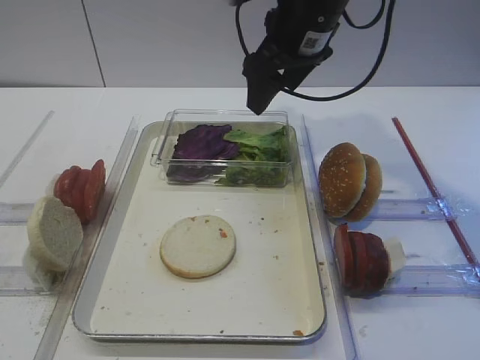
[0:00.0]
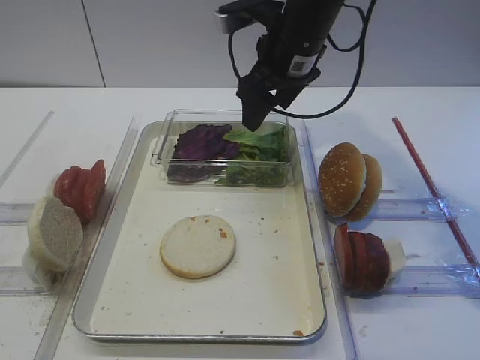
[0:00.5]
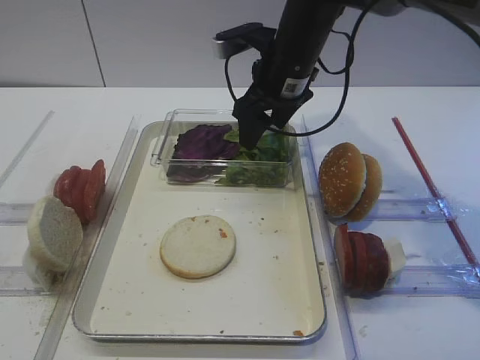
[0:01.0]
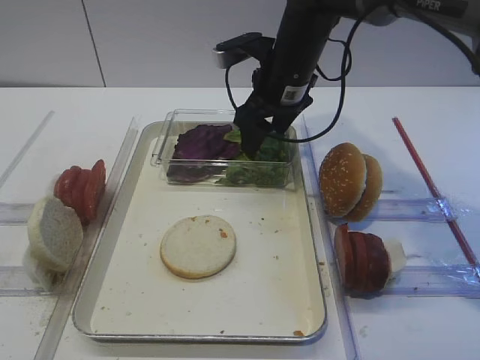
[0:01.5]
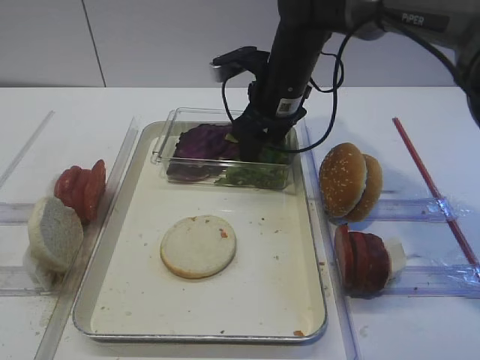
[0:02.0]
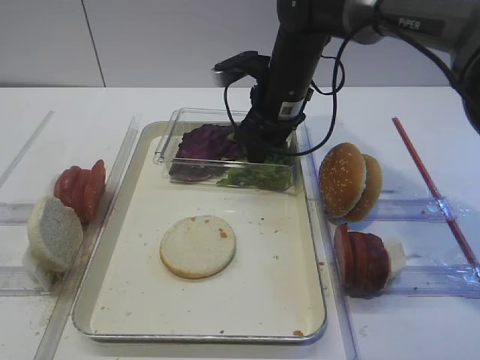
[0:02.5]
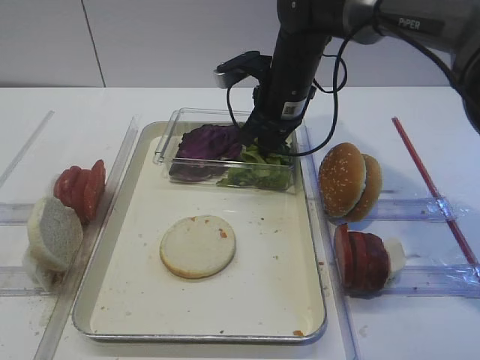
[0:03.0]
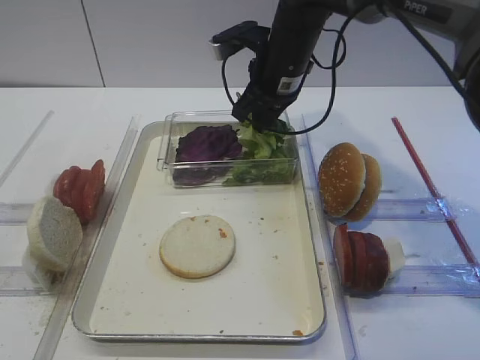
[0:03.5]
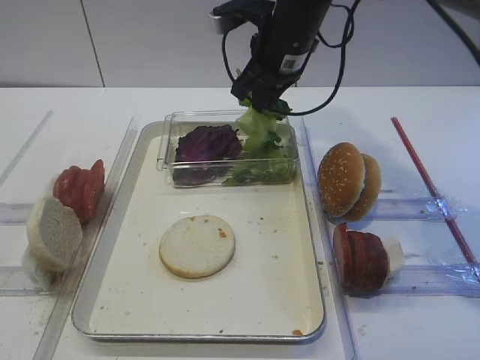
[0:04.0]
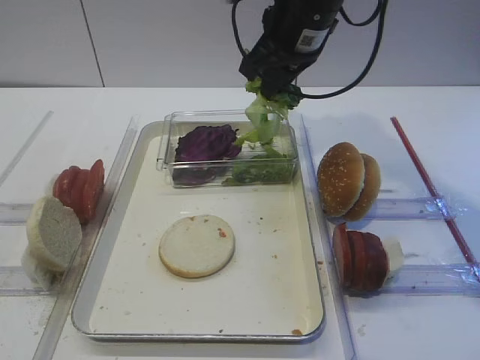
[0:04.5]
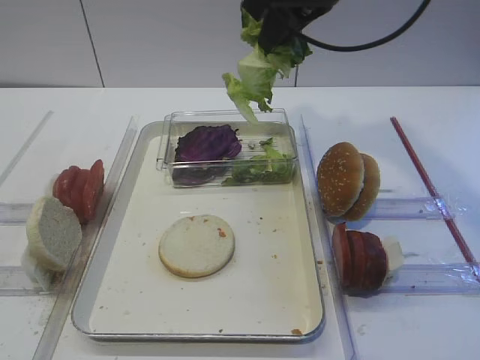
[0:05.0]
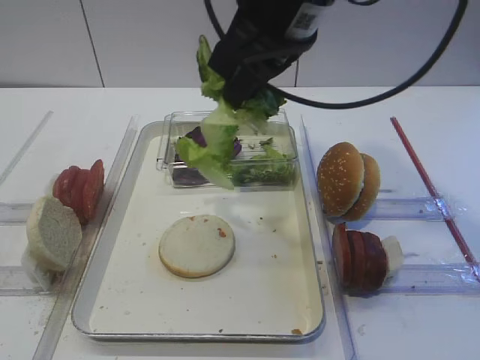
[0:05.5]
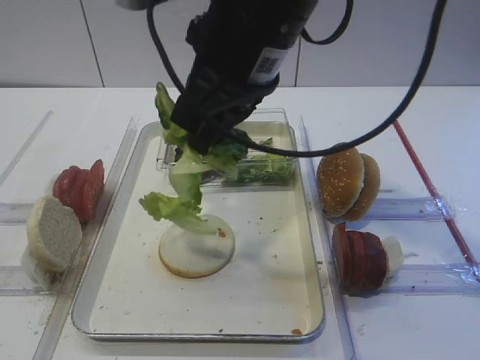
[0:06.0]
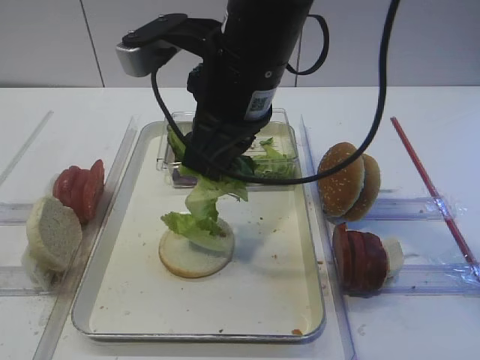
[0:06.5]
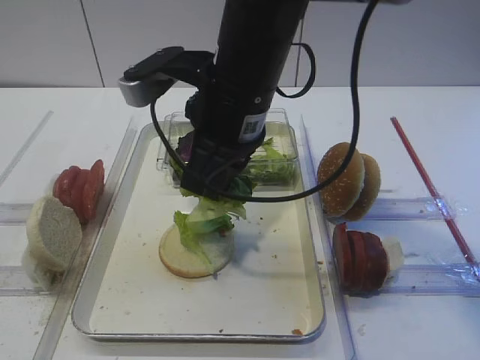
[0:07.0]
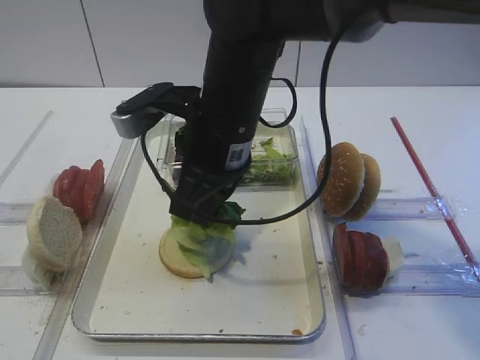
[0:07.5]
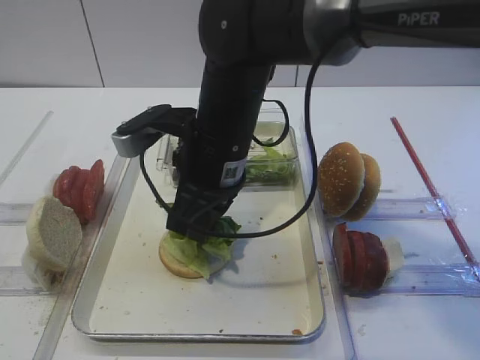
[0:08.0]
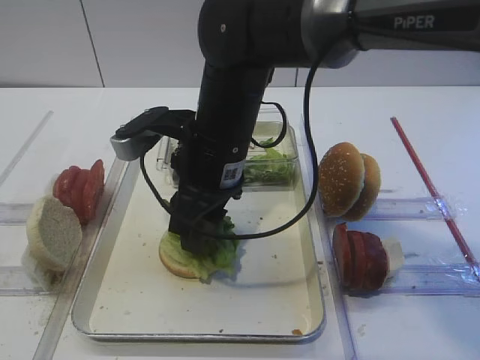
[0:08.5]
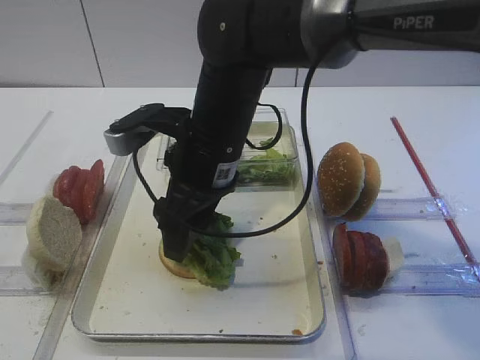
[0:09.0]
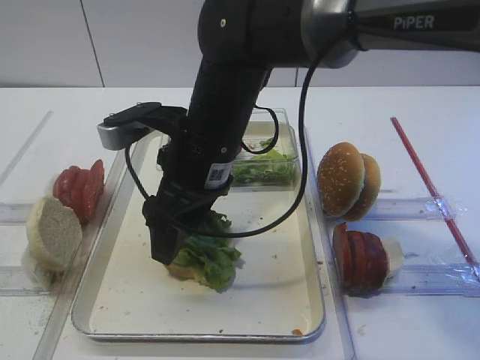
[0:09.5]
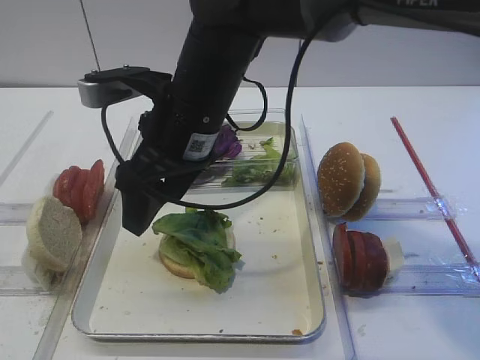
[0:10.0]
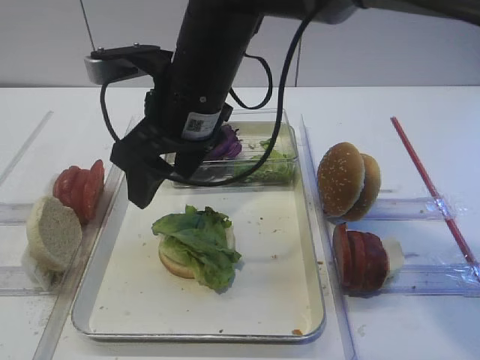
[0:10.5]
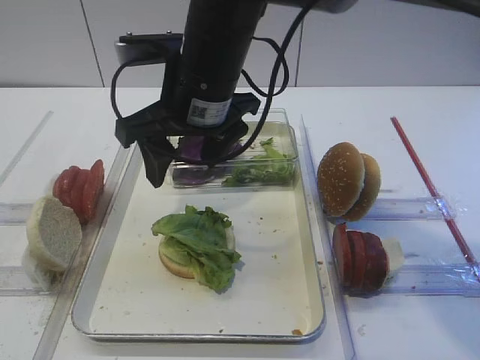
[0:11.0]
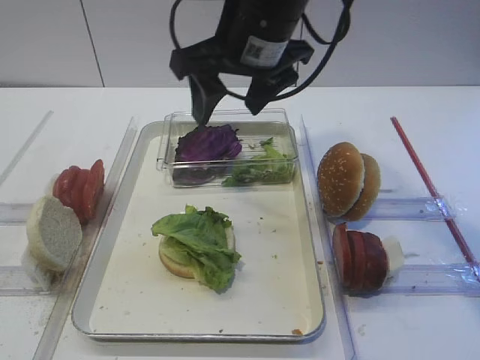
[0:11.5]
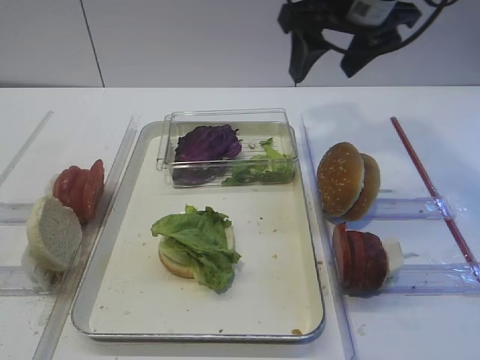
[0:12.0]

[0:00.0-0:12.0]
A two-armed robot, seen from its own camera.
Step, 0:00.0 to 0:04.0: Pick up the lettuce leaf with the right gripper.
Step, 0:04.5 to 0:09.5: Place the lettuce leaf on the bread slice with the right gripper.
0:00.0 to 0:02.0: The right gripper is displaced downward by some 10 cm.
0:02.0 to 0:04.0: The right gripper travels upward by some 5 cm, and closes.
0:04.0 to 0:06.0: The right gripper goes about 20 cm backward and upward.
0:06.0 to 0:08.0: The right gripper moves downward, roughly 10 cm.
0:08.0 to 0:10.0: The right gripper opens up.
0:10.0 to 0:12.0: The right gripper goes some 20 cm to the right, upward and forward.

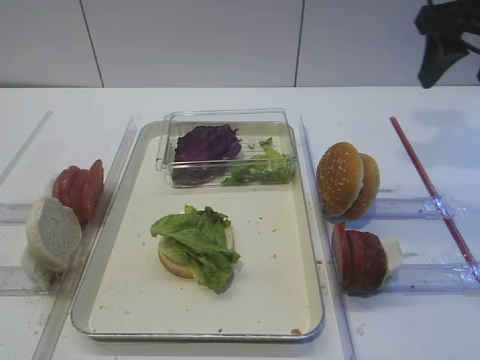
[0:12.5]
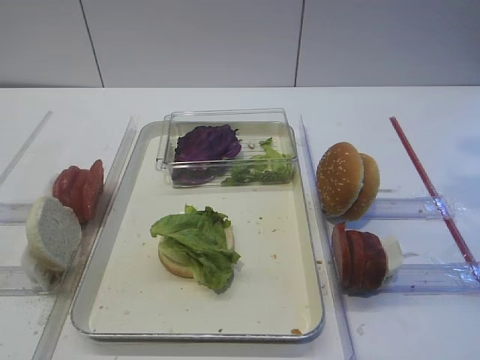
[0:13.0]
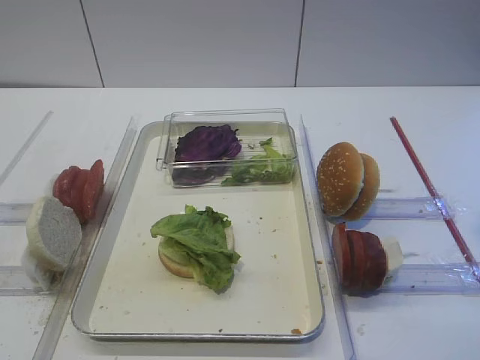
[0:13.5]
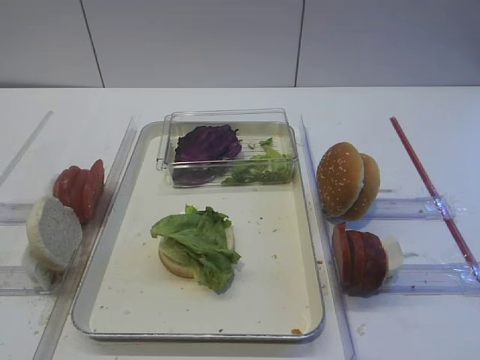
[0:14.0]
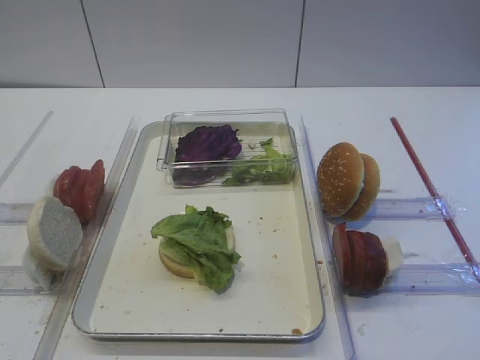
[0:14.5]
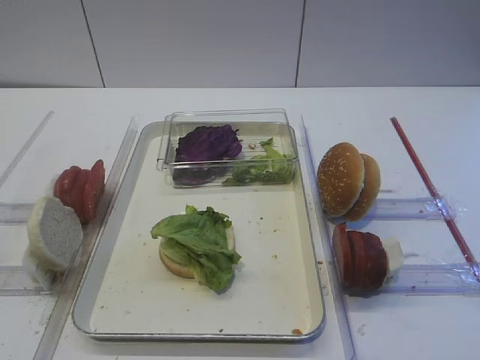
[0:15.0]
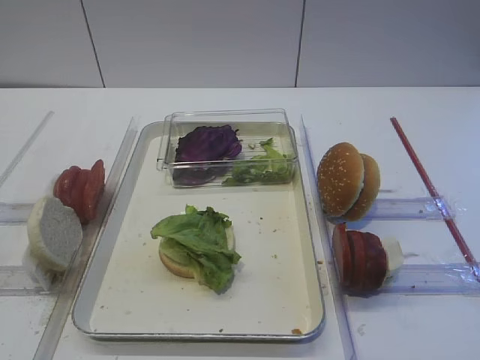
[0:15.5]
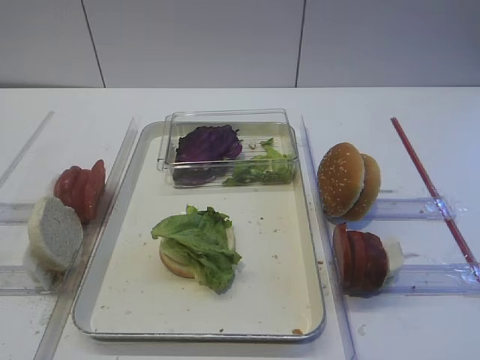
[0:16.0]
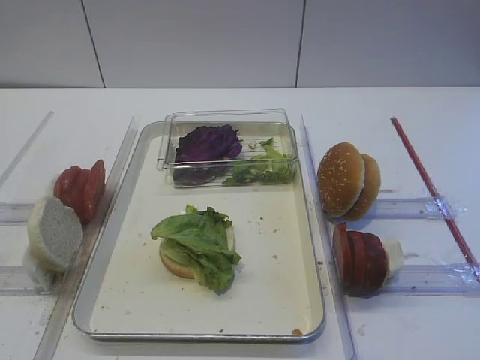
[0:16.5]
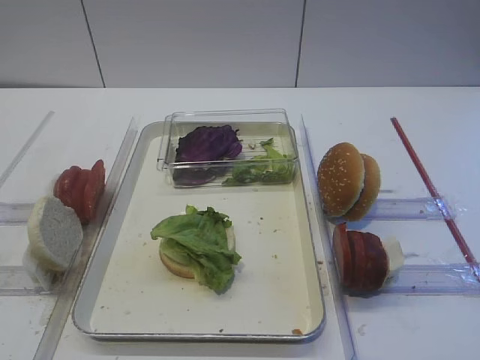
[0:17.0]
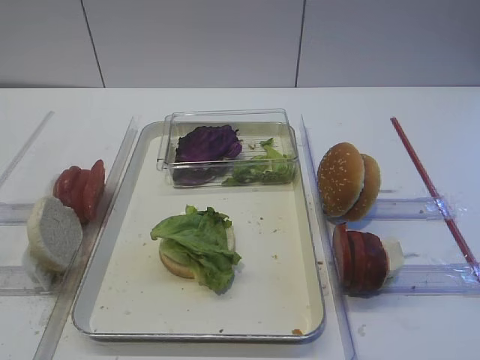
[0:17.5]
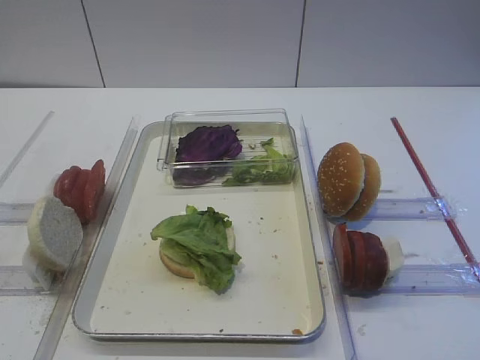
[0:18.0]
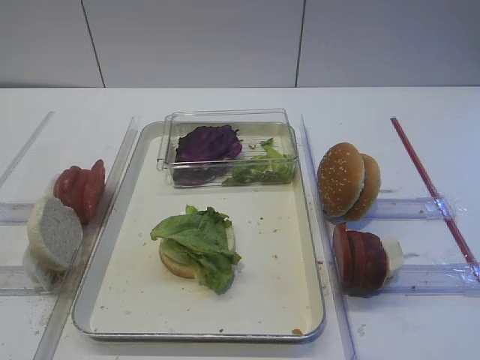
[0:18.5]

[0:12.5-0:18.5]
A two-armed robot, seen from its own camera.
0:12.5 to 0:14.5: The right gripper travels backward by some 30 cm.
0:16.5 to 0:18.5: Both grippers stay about where they are.
